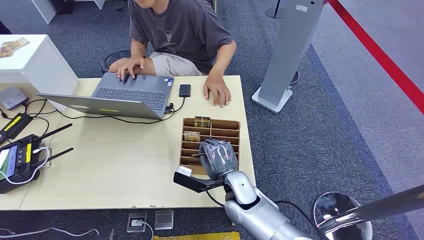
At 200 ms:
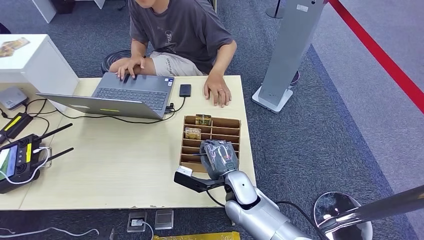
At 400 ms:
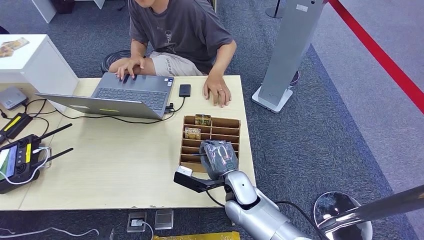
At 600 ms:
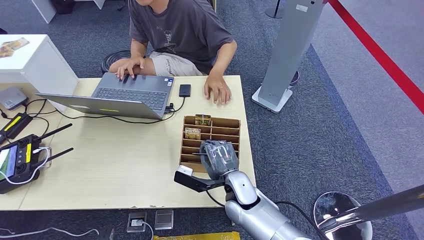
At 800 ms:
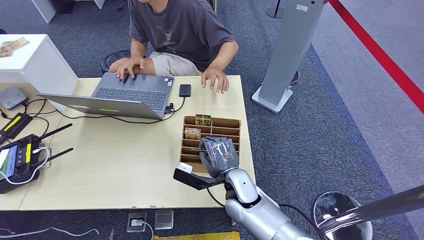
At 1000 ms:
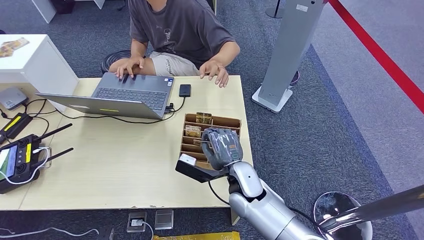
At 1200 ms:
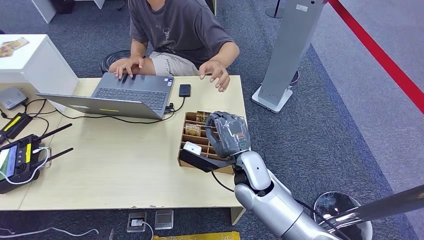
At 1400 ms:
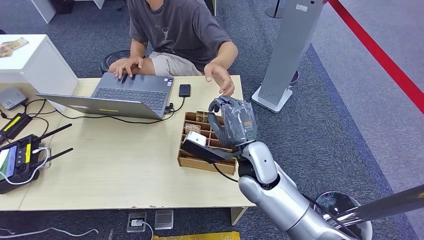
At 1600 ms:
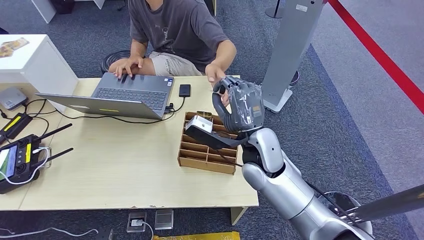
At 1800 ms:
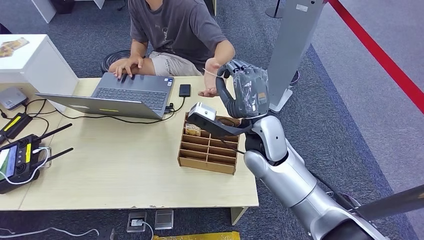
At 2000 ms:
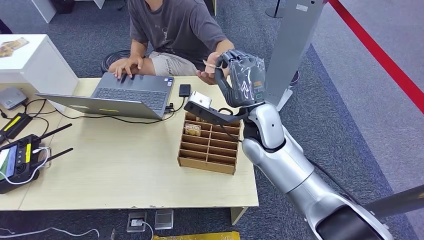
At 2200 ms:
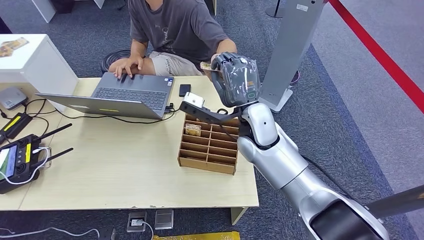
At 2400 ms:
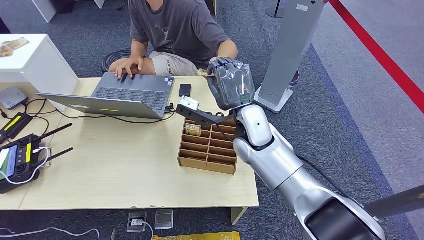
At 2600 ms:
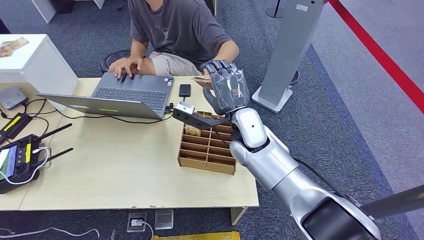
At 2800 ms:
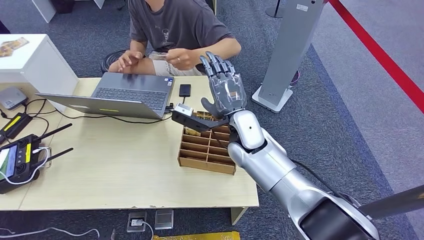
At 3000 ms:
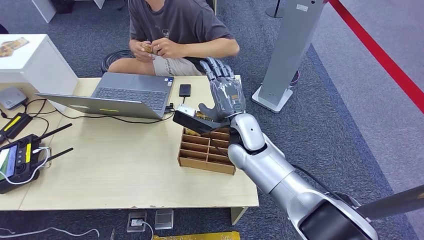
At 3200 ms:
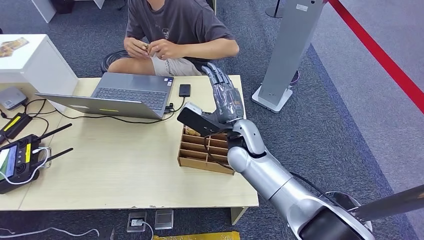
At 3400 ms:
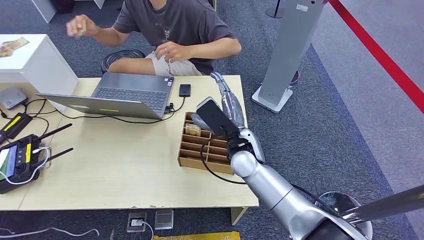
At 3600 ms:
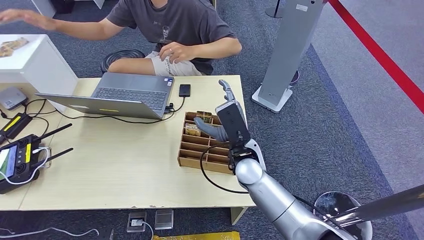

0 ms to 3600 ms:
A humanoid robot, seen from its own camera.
Step, 0 ms to 1200 ms: Pick up the key card from the card box.
Step, 1400 ms to 3600 ms: Hand the key card to the target.
1800 ms to 3600 ms: The right hand heads downward, covering about 10 cm.
